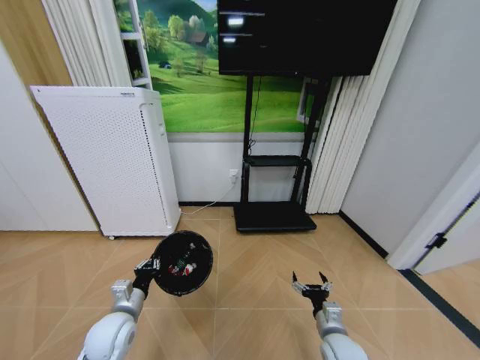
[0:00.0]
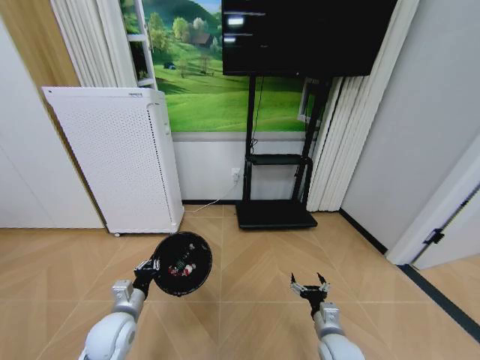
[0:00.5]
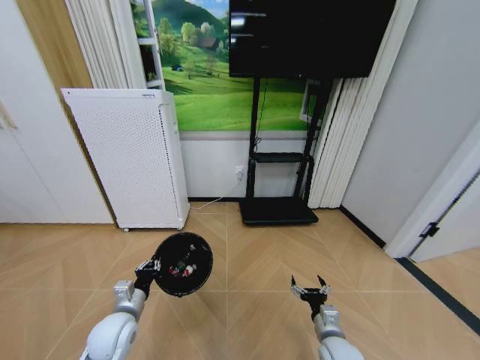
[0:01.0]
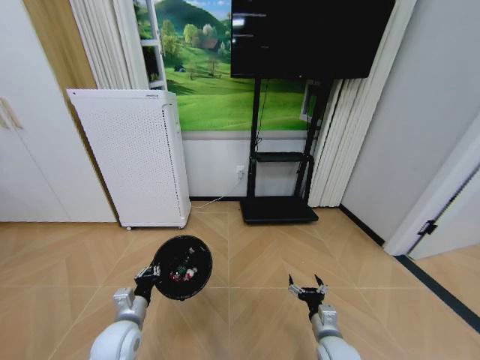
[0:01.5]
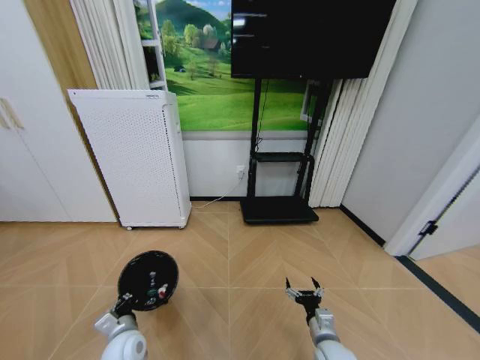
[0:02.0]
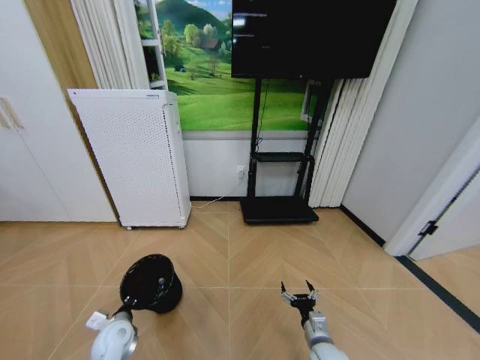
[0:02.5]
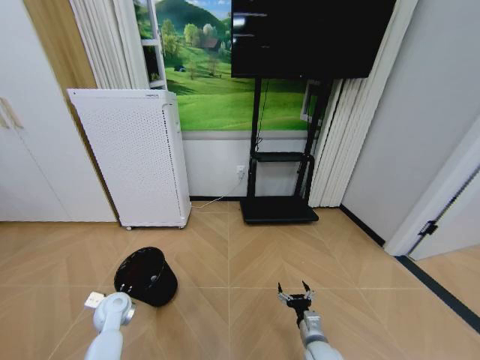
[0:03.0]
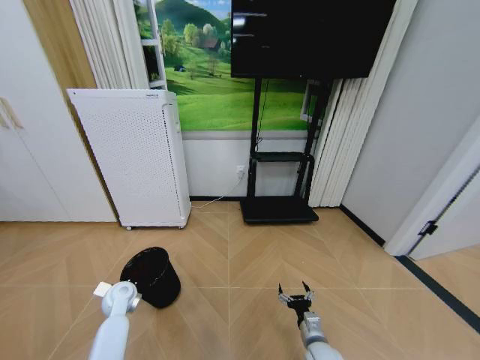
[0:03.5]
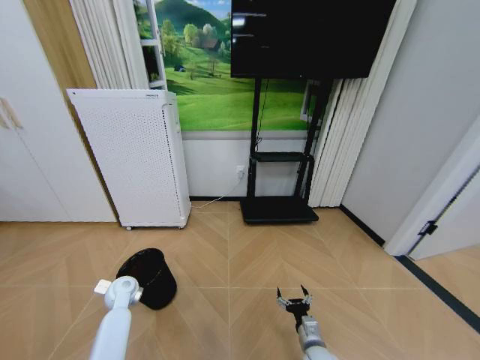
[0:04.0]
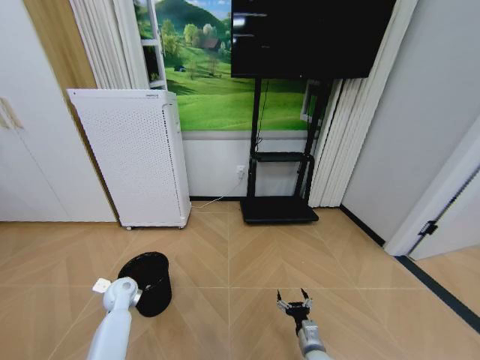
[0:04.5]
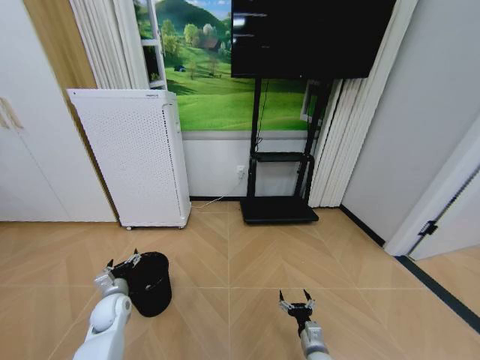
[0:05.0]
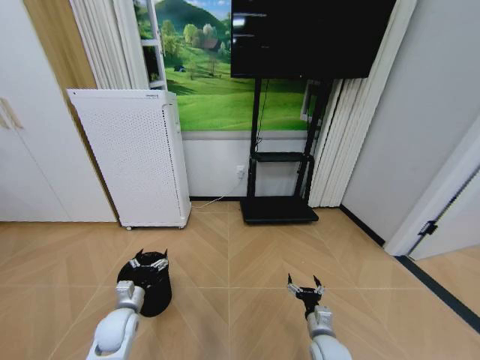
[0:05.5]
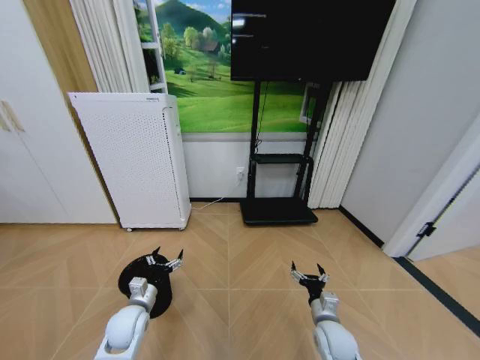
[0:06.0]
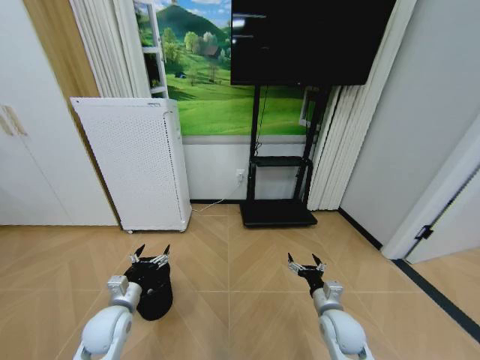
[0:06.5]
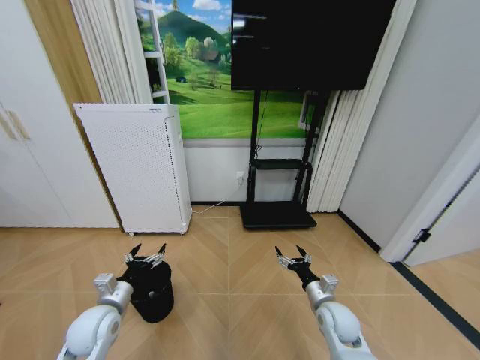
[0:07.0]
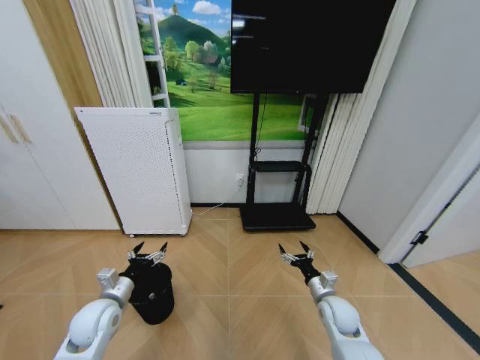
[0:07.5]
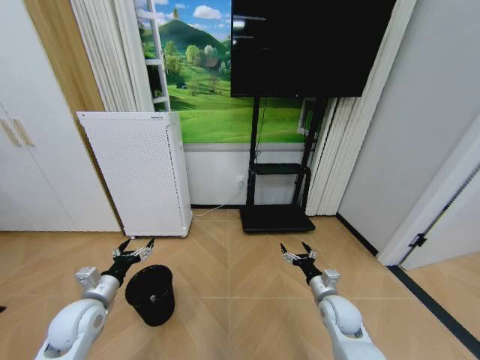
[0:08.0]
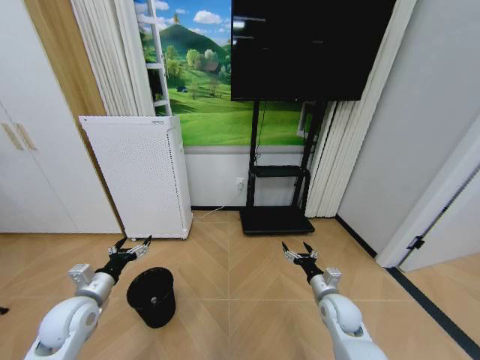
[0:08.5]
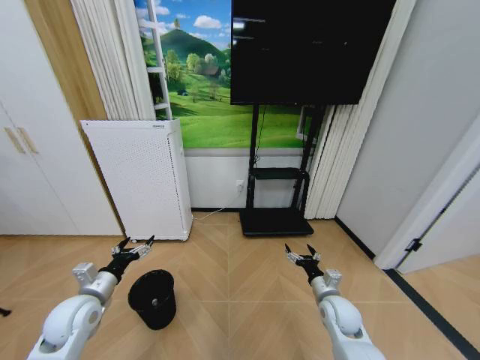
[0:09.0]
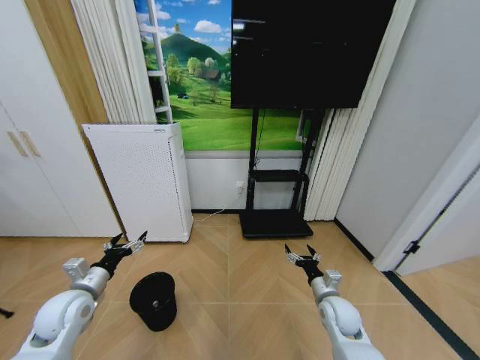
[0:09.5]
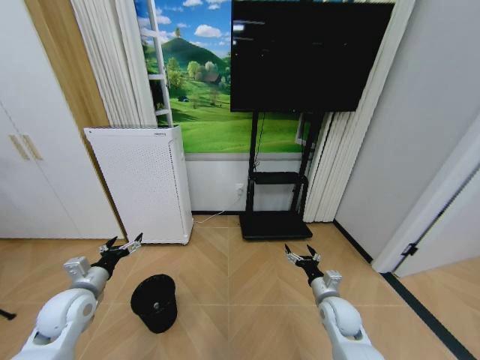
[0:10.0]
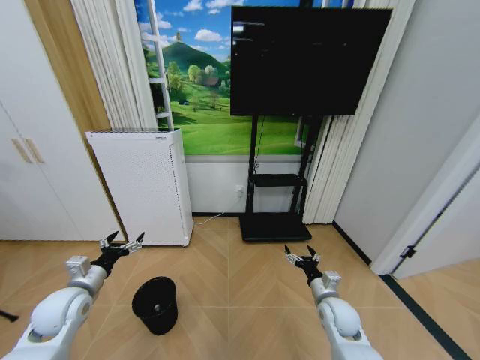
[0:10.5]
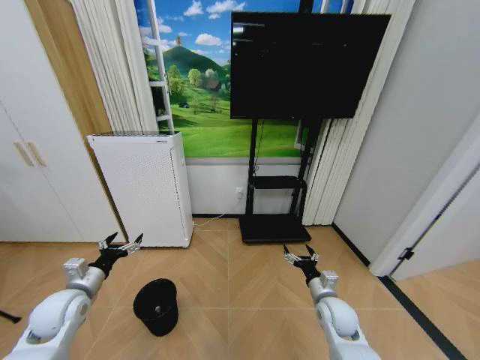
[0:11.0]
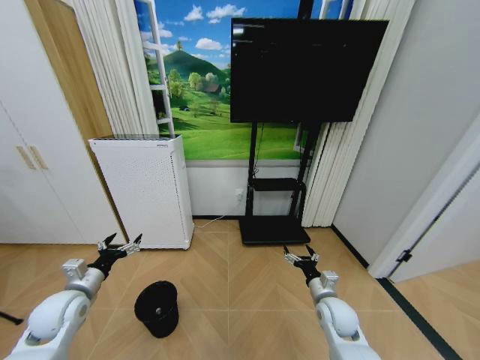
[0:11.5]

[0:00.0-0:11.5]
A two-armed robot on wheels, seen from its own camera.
Task of the whole recording: Pick up the trash bin and place the garbage on the floor into it.
0:00.0 to 0:02.0: The left gripper goes about 5 cm downward.
0:02.0 to 0:04.0: The right gripper is displaced downward by some 5 cm, while the left gripper goes about 20 cm forward and to the left.
0:04.0 to 0:06.0: The right gripper shifts some 5 cm upward. Meanwhile the left gripper is displaced backward and to the right by some 10 cm, and opens its fingers.
0:06.0 to 0:07.5: The right gripper shifts approximately 5 cm forward; the left gripper shifts approximately 5 cm upward.
0:07.5 to 0:09.5: The left gripper shifts some 5 cm to the left.
0:09.5 to 0:11.5: The grippers stay close to where they were, moving slightly.

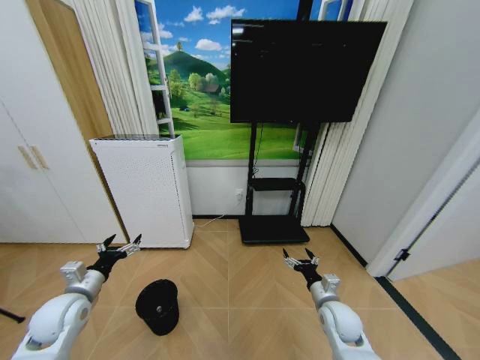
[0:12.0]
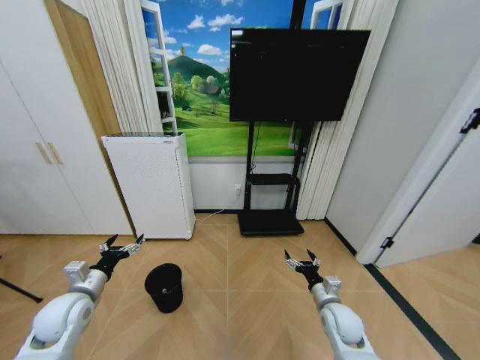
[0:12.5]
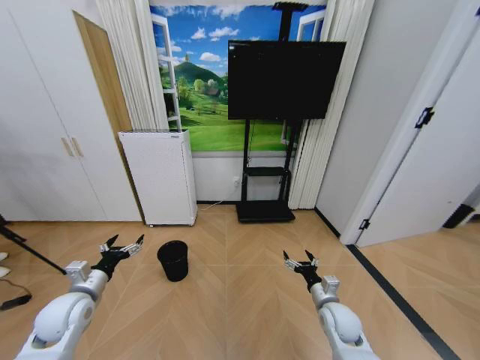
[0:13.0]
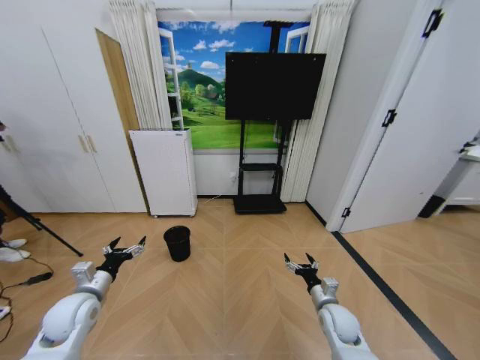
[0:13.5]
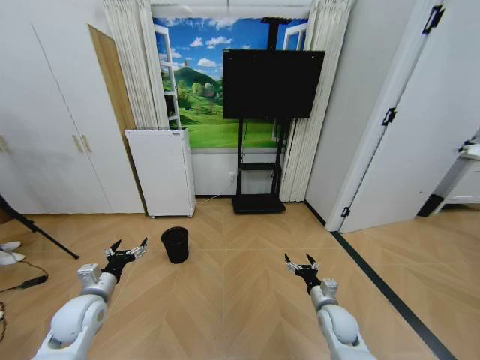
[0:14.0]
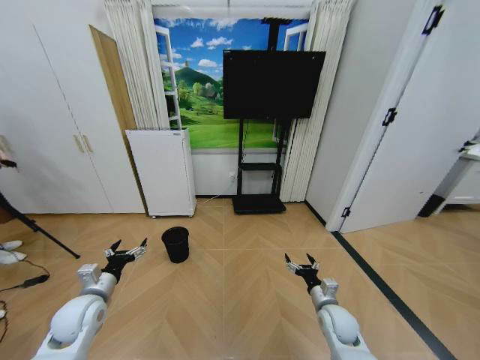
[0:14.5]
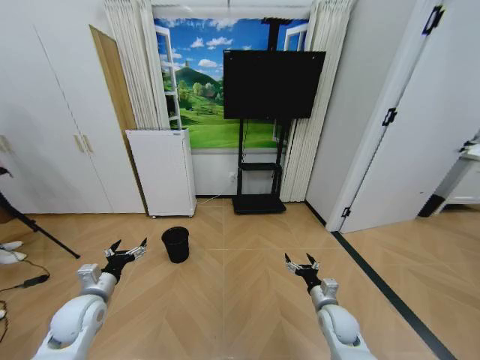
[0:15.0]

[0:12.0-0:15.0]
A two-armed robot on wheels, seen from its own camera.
Task of the whole recording: Pick up the trash bin and place the garbage on the floor into it.
0:13.5 to 0:15.0: The grippers stay close to where they were, moving slightly.
